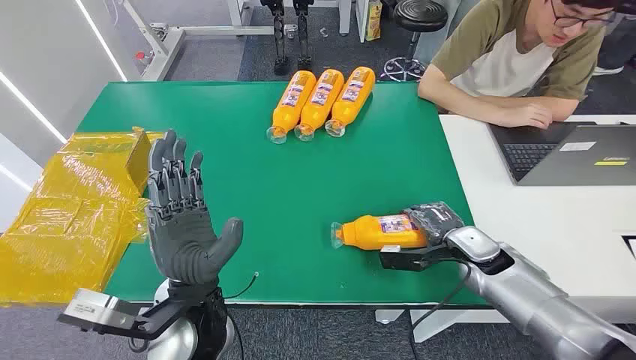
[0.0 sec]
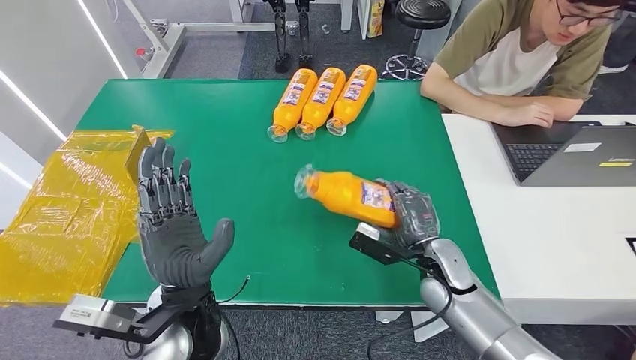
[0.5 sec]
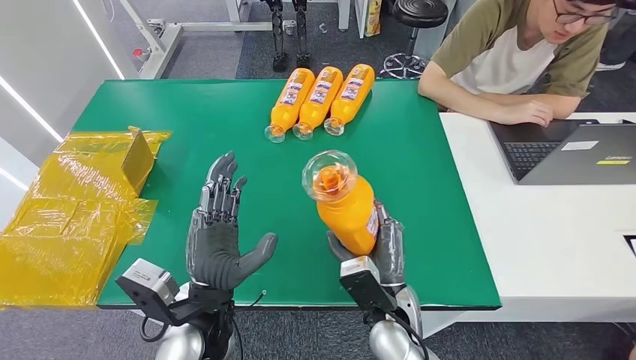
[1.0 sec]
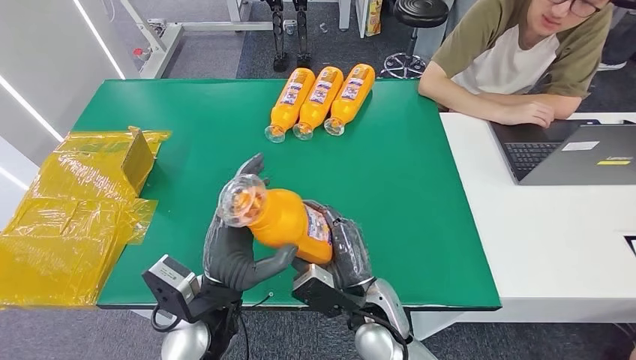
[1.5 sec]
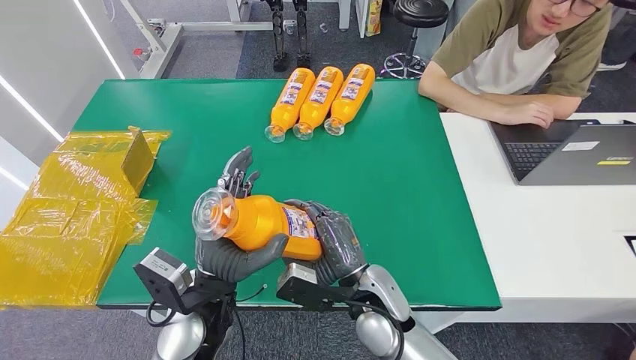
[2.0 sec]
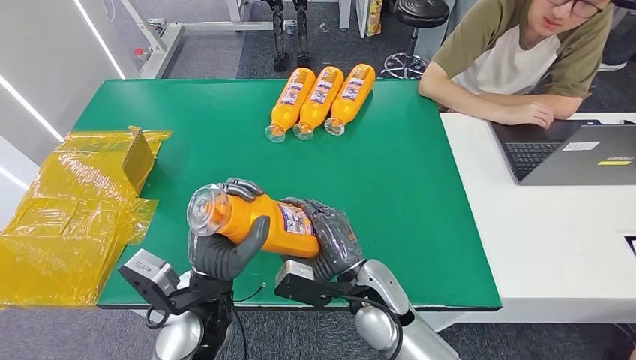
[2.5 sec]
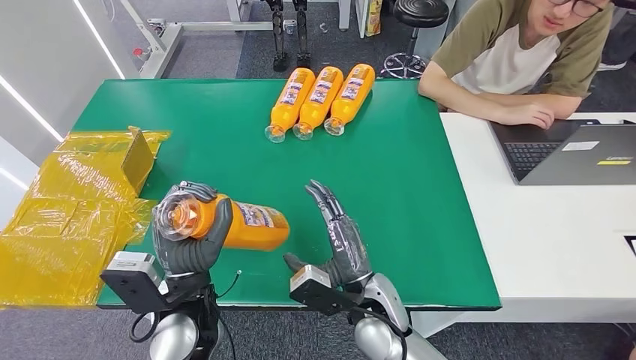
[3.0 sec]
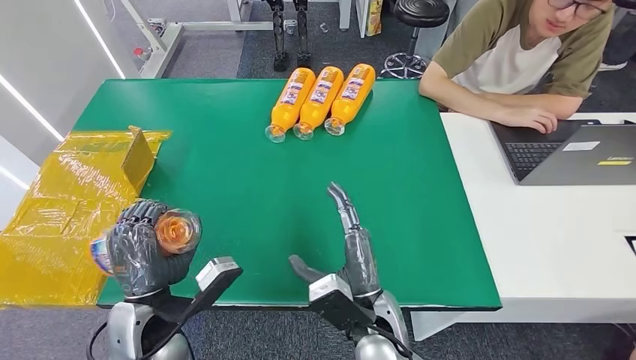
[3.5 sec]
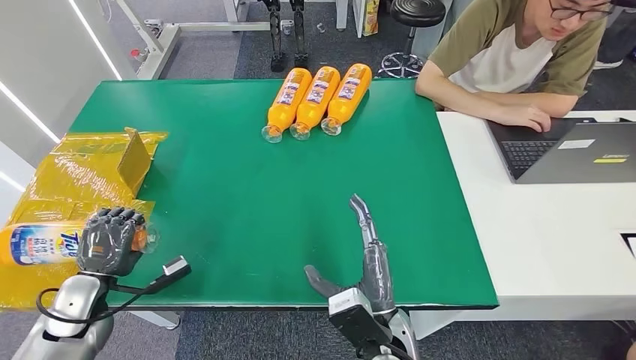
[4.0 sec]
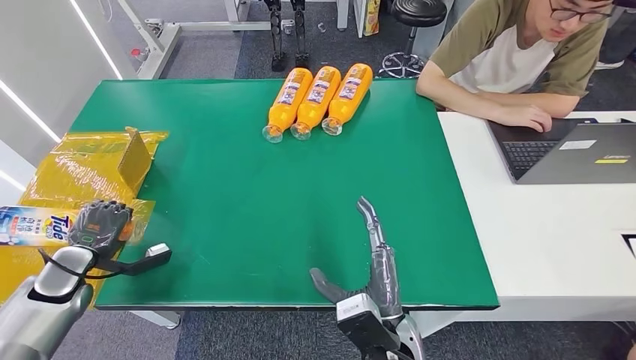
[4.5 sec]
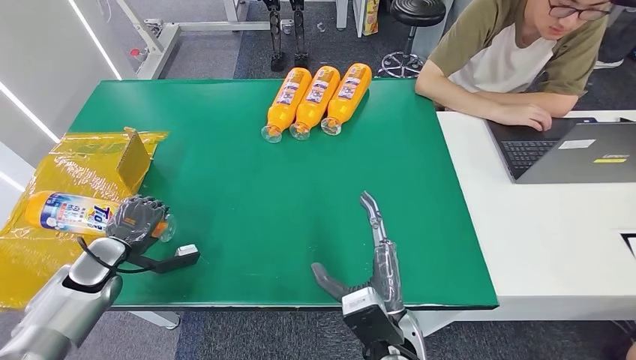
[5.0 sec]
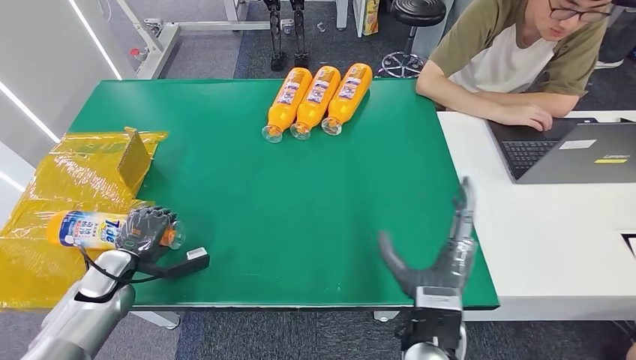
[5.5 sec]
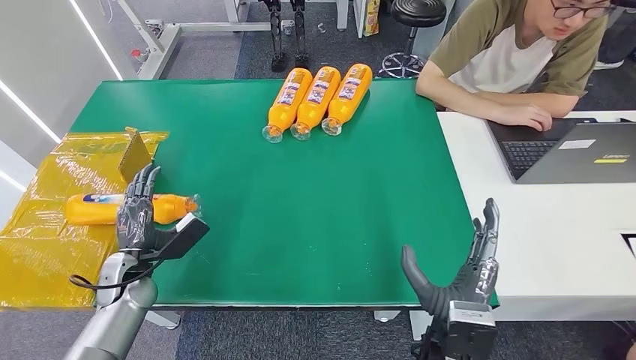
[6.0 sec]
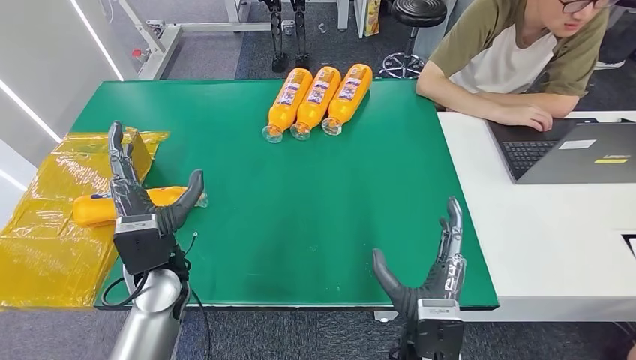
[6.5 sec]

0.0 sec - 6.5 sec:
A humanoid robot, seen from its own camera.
Step, 0.0 sec - 2.0 sec: Pick up the bottle from the table.
Step, 2.5 sec - 6.5 sec: Turn the bottle to the front side.
4.5 sec - 6.5 sec: The left hand is displaced to the right by approximately 30 cm.
